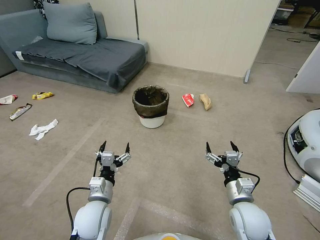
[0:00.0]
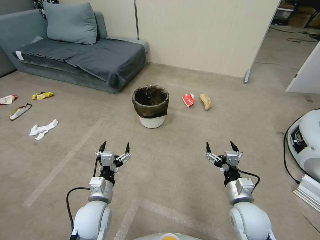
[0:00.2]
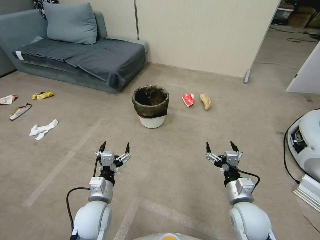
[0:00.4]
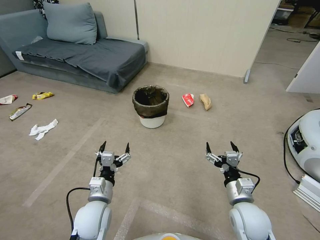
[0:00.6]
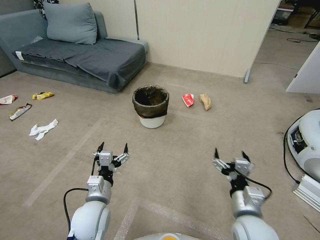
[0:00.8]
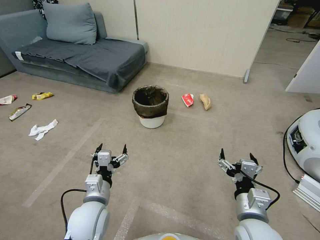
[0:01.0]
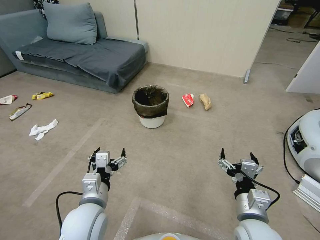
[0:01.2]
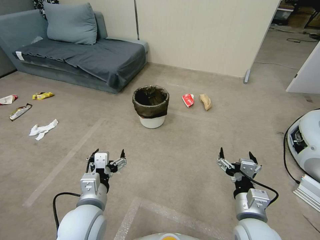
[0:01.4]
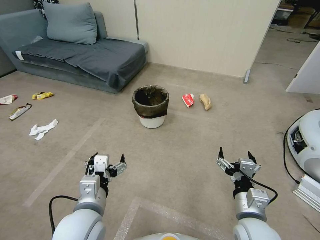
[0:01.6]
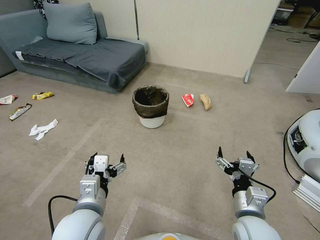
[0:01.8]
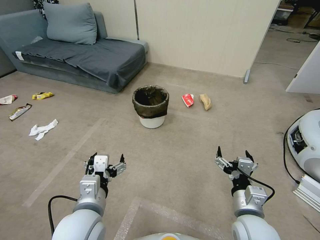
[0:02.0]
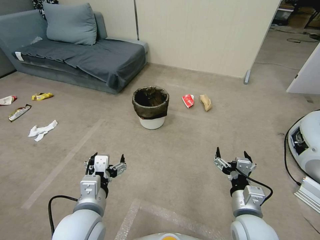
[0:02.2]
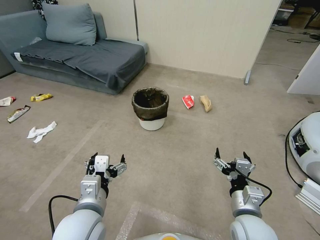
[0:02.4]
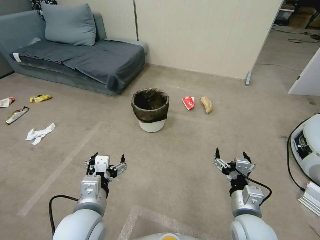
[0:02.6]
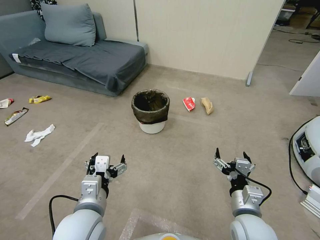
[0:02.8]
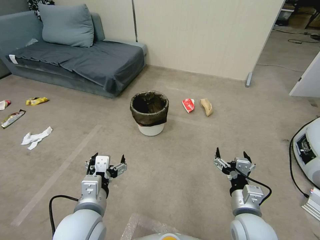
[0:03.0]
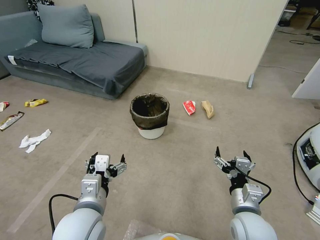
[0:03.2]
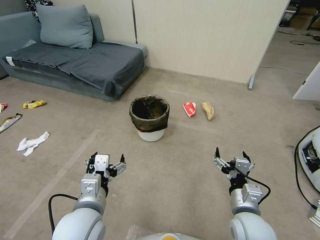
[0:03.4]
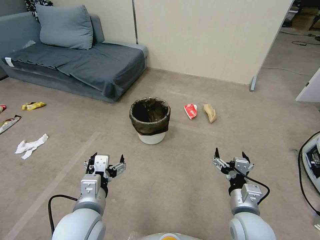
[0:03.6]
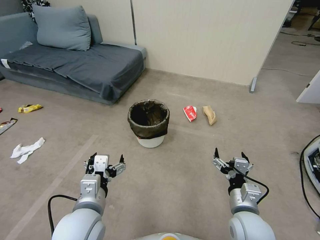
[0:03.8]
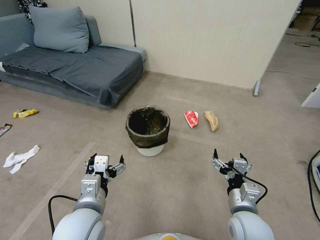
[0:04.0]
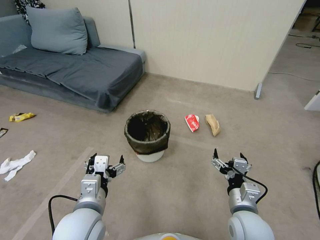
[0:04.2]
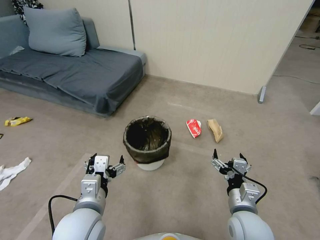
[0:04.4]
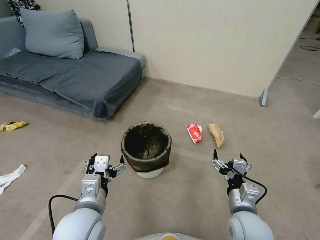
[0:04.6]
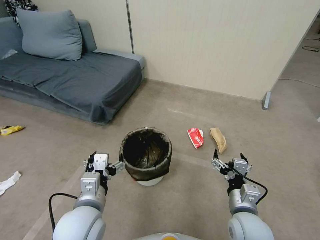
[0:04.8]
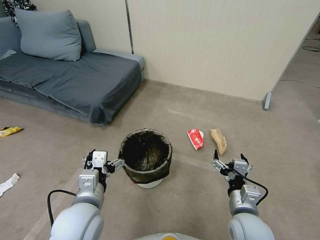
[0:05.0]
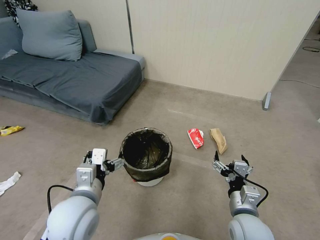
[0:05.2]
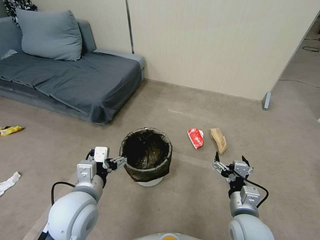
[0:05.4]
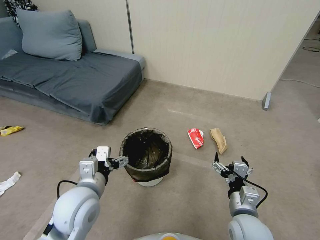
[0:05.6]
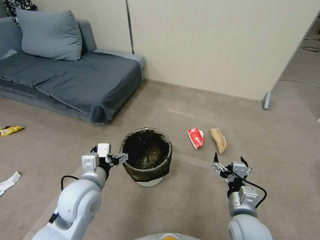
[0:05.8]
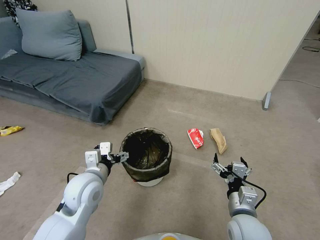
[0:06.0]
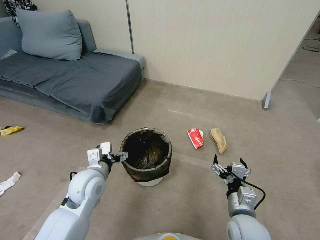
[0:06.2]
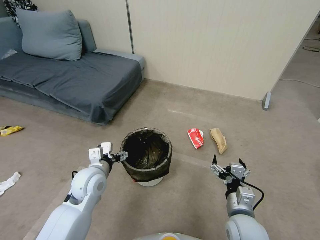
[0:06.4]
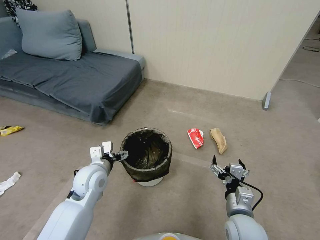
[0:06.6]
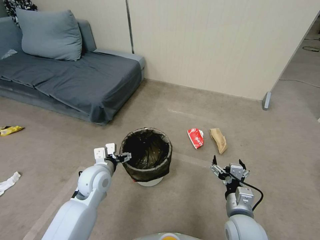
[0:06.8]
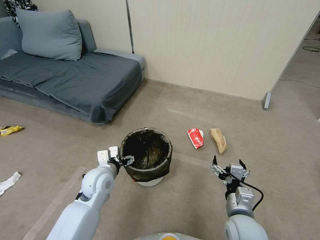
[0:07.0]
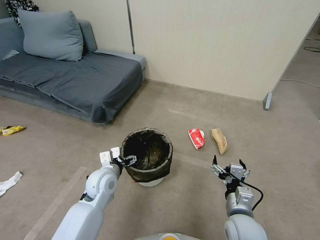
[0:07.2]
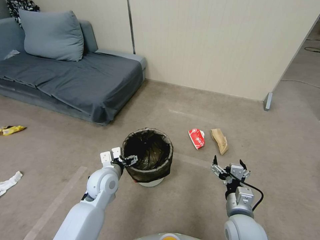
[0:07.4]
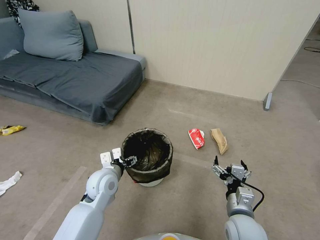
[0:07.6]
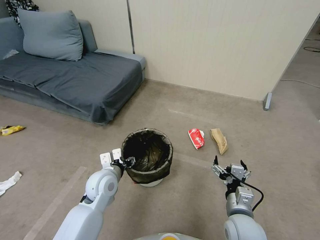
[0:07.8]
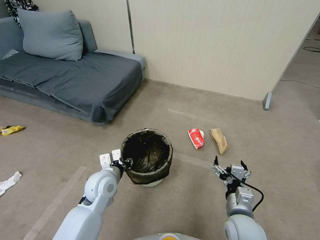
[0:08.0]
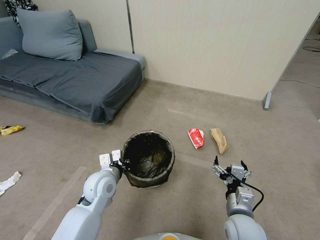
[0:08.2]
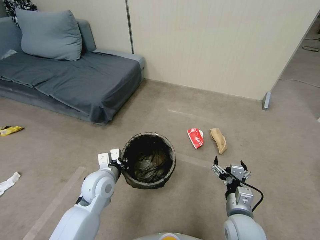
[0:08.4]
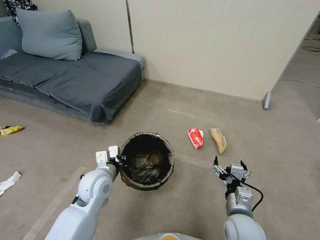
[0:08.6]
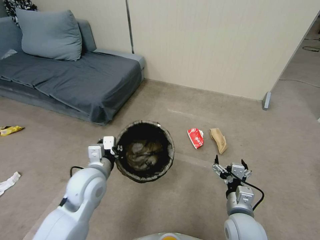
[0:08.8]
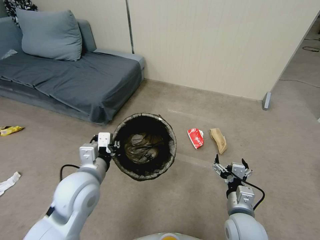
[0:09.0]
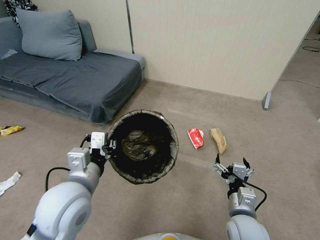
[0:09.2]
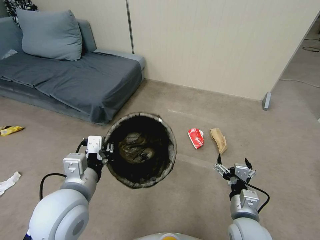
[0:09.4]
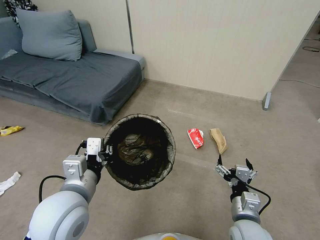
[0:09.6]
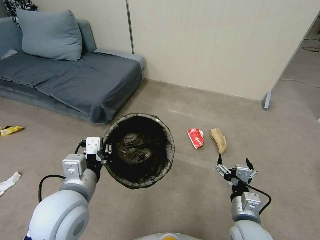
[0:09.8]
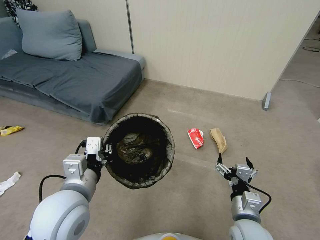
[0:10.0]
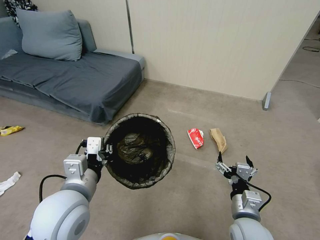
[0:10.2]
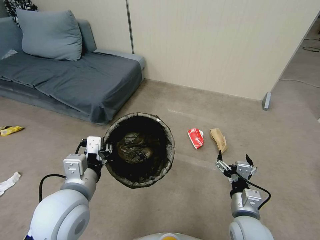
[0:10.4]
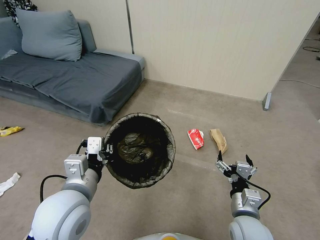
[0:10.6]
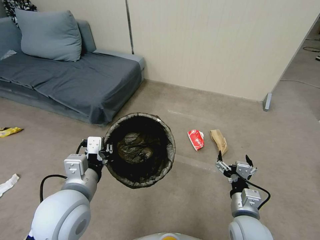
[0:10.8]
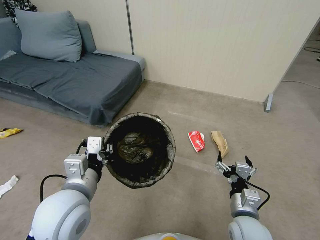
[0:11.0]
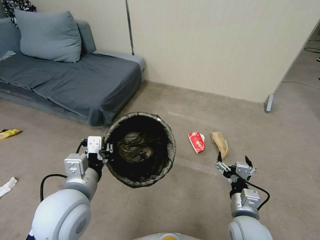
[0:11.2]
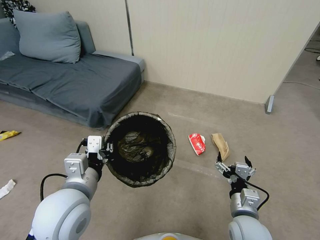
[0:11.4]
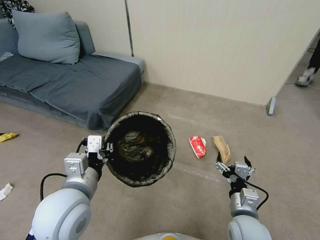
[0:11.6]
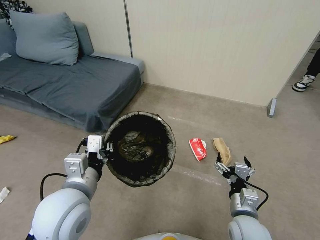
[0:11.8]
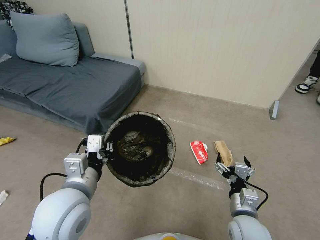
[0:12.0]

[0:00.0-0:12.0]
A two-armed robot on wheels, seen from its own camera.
Task of the whole recording: Pick up the trash bin, then pick up the garbage from the floor and place it into the trash bin.
0:01.6 to 0:03.0: The grippers move only a little.
0:04.4 to 0:06.0: The left gripper heads forward, covering about 10 cm.
0:06.0 to 0:07.6: The left gripper travels downward by approximately 5 cm.
0:07.6 to 0:09.0: The left gripper is displaced upward by some 10 cm, and closes up.
0:09.0 to 0:10.4: The left gripper heads backward and upward, covering about 10 cm.
0:10.4 to 0:12.0: Both grippers stay about where they are.

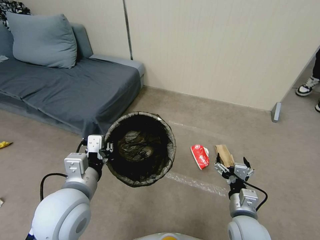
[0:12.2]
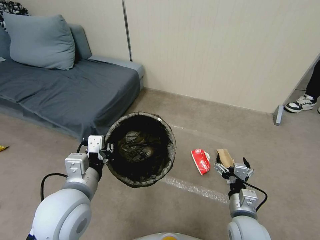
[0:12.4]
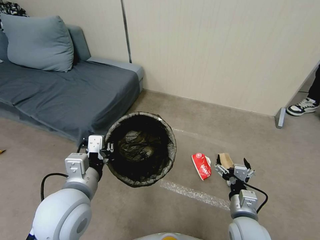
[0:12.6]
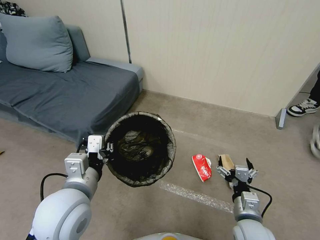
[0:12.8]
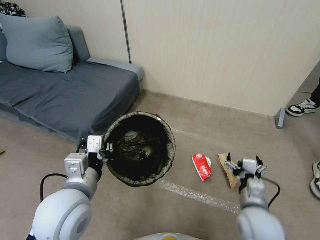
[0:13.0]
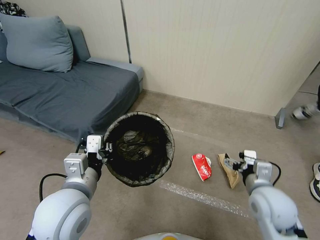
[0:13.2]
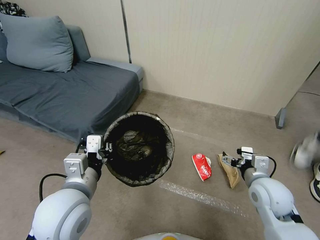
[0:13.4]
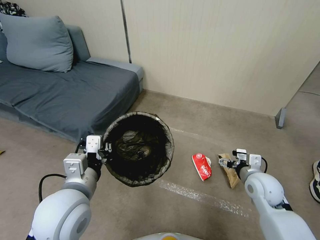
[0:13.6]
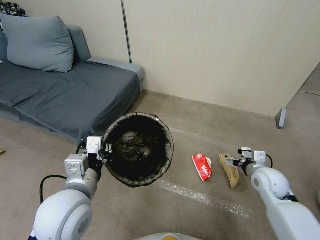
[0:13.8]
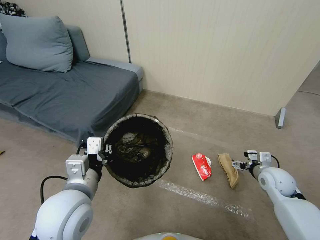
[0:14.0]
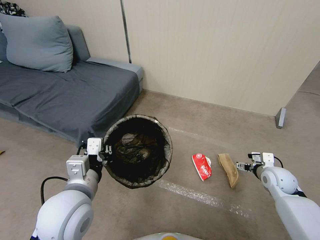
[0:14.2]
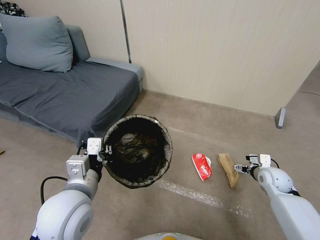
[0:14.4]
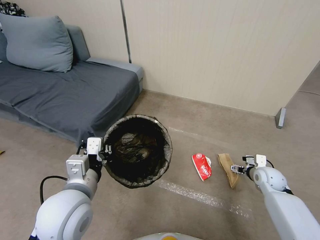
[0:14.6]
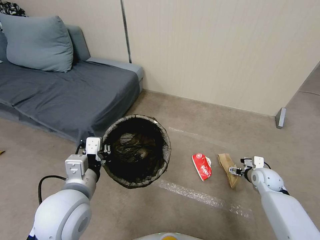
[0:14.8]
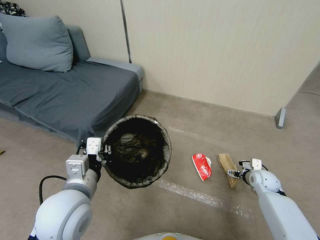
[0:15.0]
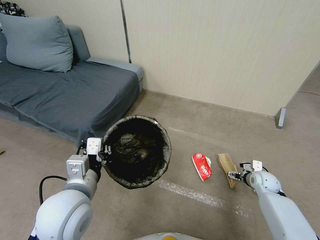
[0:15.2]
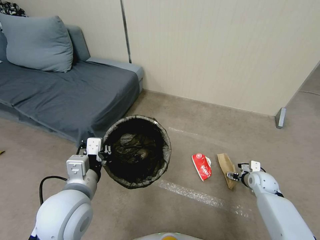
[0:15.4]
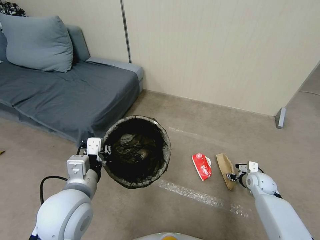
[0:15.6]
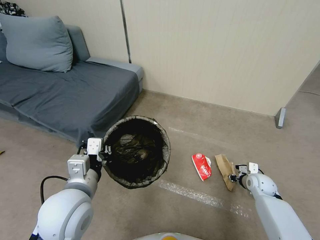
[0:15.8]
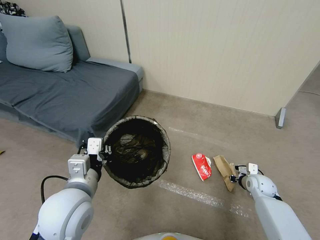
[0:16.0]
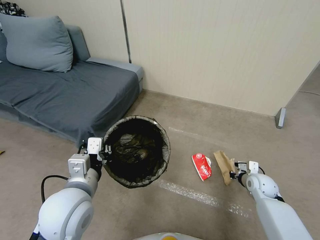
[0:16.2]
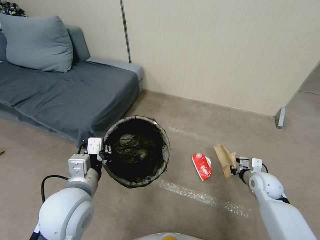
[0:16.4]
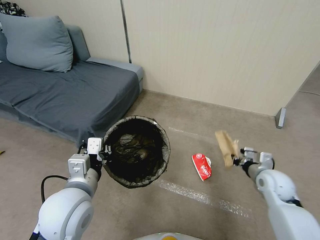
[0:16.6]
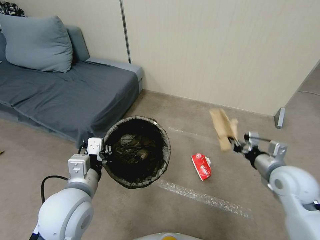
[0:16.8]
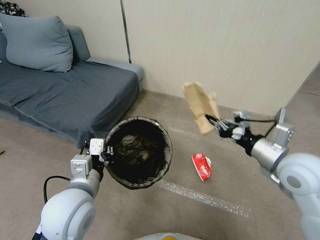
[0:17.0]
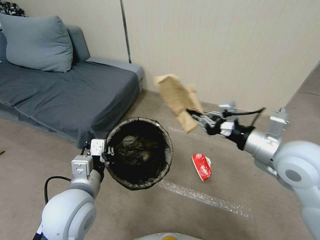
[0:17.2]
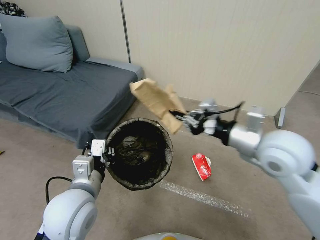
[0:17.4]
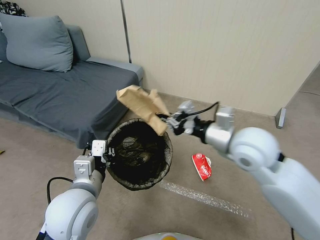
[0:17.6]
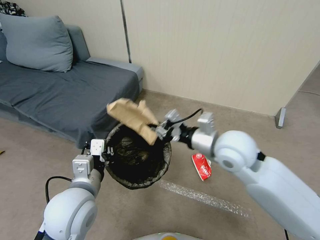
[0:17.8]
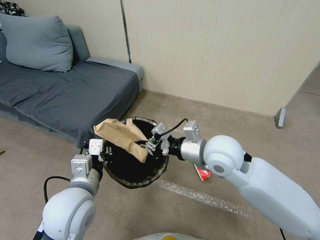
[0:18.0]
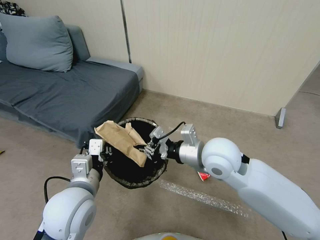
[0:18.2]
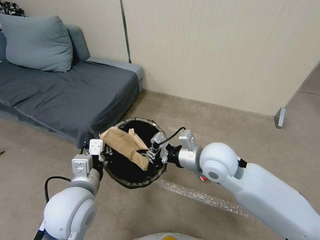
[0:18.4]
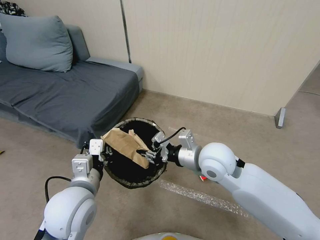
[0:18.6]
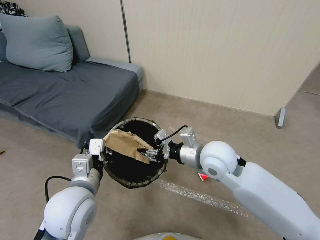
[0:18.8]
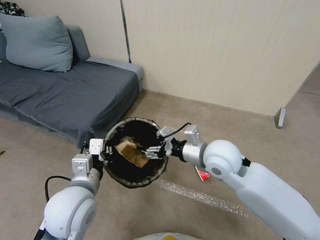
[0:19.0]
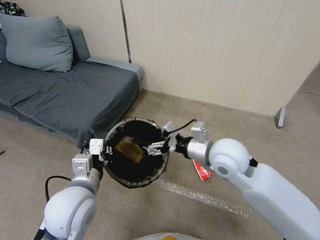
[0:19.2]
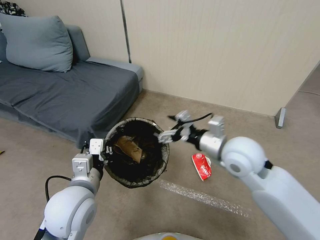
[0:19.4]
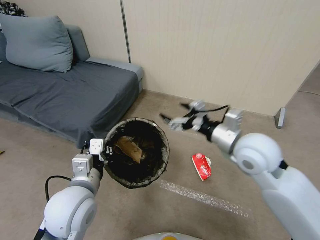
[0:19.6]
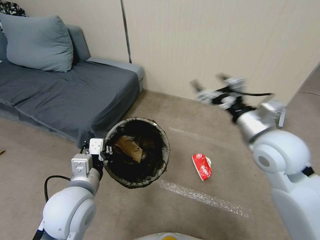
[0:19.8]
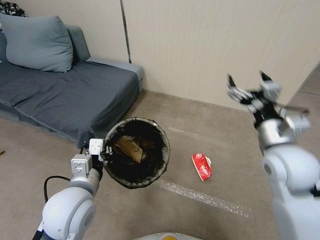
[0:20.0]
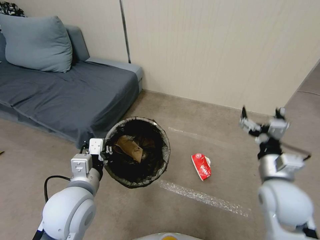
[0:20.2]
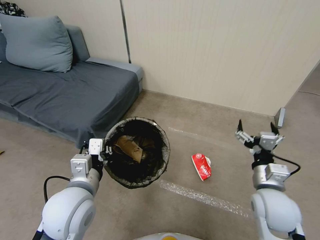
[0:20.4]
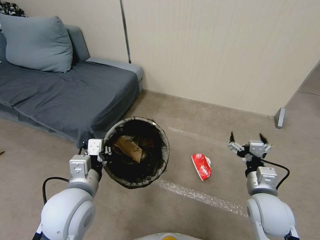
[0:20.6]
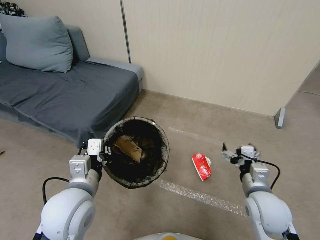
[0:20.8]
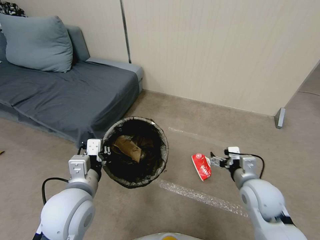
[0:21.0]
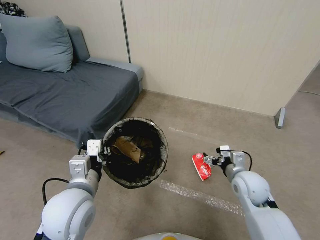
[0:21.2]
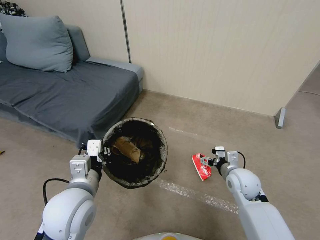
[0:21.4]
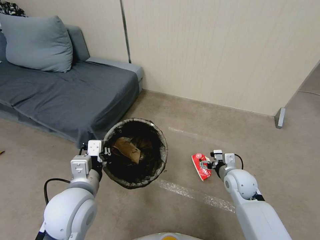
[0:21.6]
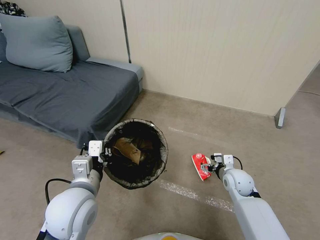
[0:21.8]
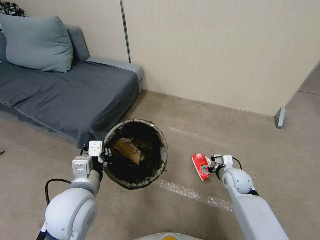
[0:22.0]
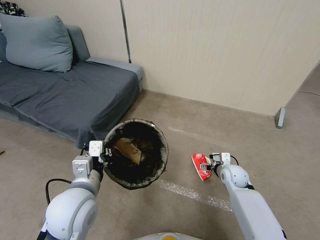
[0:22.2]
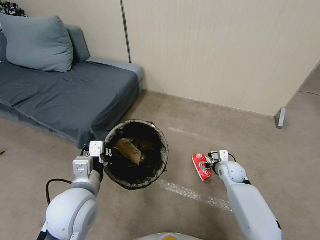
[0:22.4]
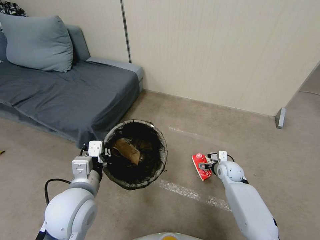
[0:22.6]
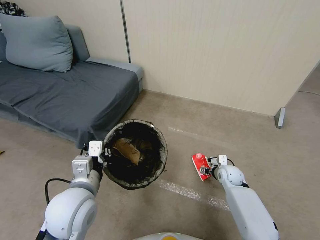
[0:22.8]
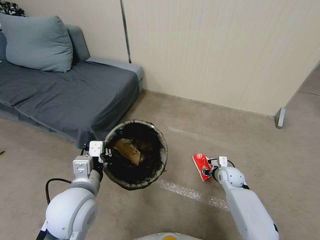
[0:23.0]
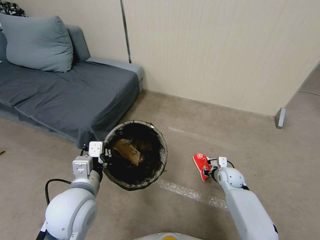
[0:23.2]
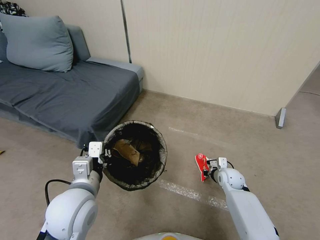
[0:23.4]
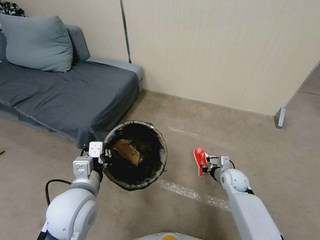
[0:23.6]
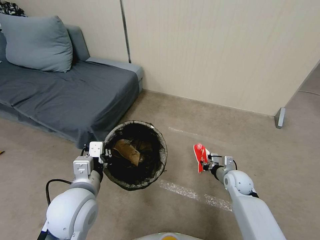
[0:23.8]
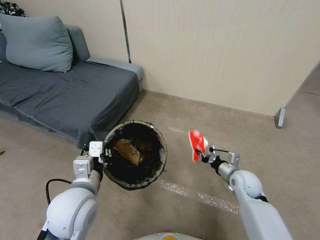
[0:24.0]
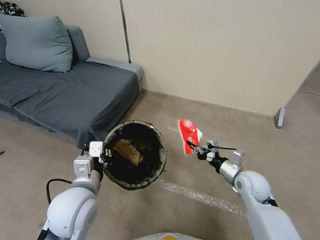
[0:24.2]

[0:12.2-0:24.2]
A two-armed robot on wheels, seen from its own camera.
Task of the whole recording: Pick up the trash bin, then pick up the garbage from the floor and place it into the trash bin.
0:12.2 to 0:13.8: The right gripper moves forward and to the right, approximately 20 cm.
0:13.8 to 0:15.2: The right gripper shifts roughly 15 cm downward and to the right.
0:15.2 to 0:16.6: The right gripper moves upward, approximately 10 cm, and closes up.
0:16.6 to 0:18.2: The right gripper shifts some 30 cm to the left and upward.
0:18.2 to 0:19.8: The right gripper moves to the right, some 10 cm, and opens.
0:19.8 to 0:21.2: The right gripper heads downward, covering approximately 20 cm.
0:21.2 to 0:22.6: The right gripper heads downward and forward, covering approximately 20 cm.
0:22.6 to 0:24.2: The right gripper moves upward and backward, about 15 cm, and closes its fingers.
